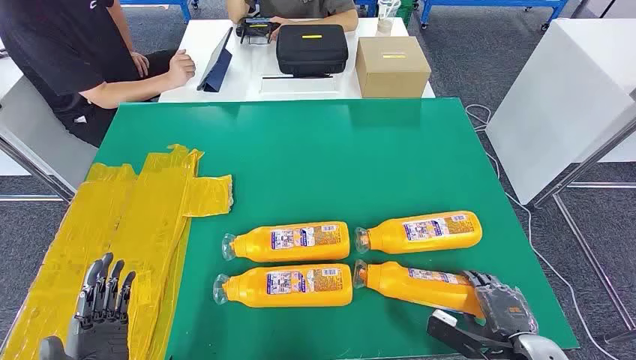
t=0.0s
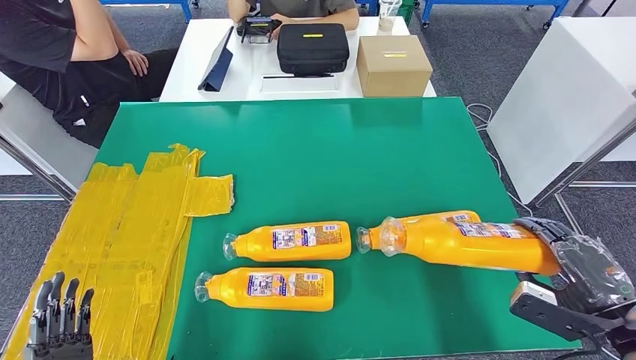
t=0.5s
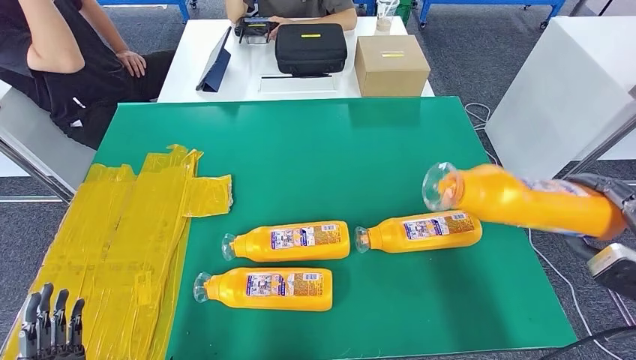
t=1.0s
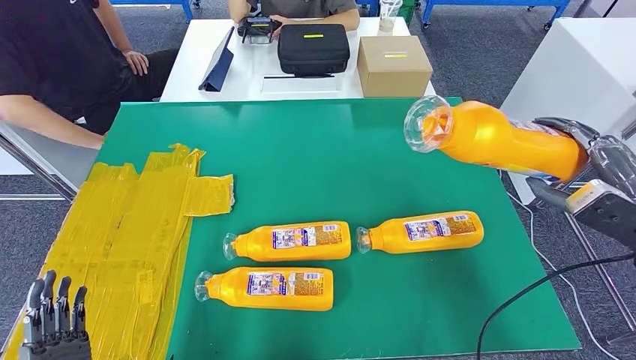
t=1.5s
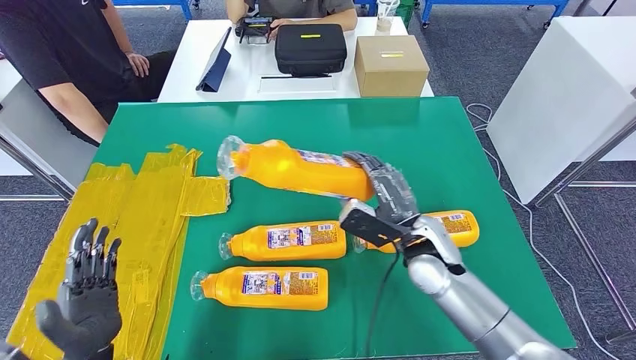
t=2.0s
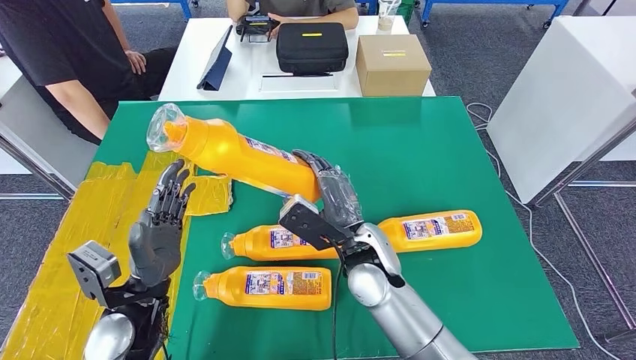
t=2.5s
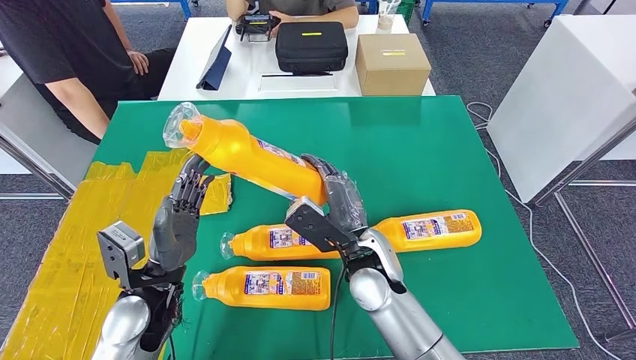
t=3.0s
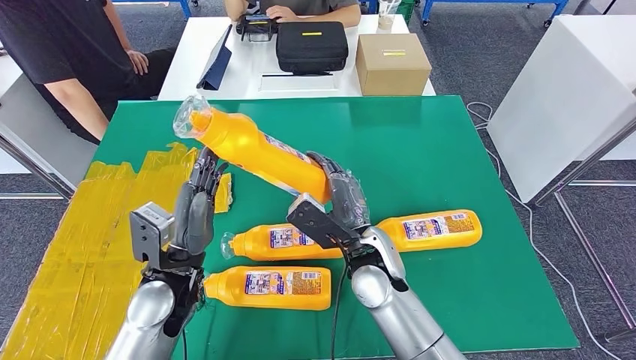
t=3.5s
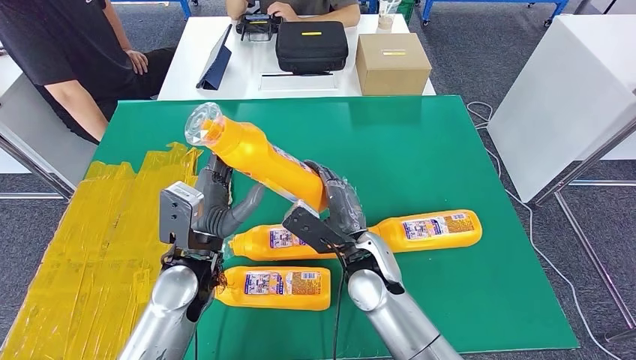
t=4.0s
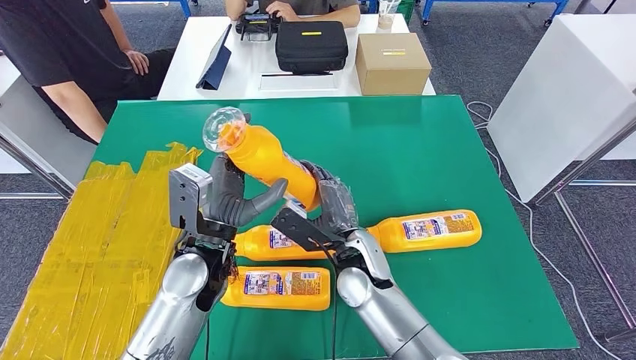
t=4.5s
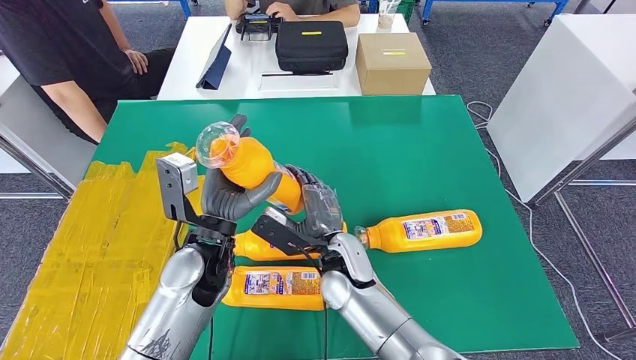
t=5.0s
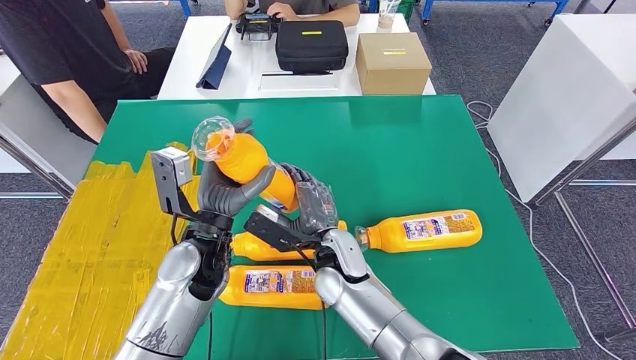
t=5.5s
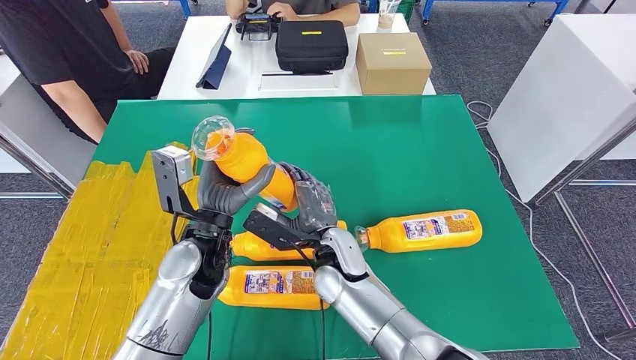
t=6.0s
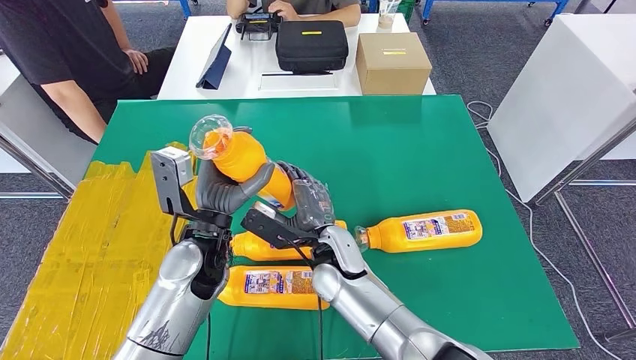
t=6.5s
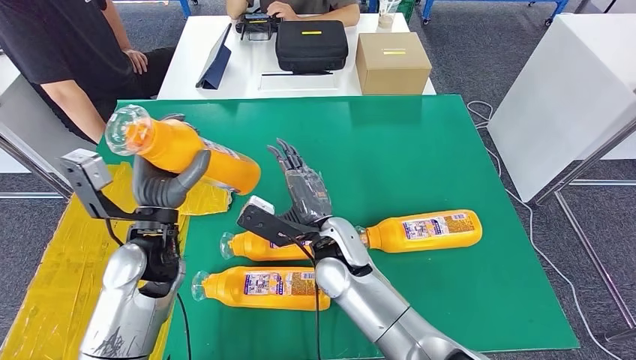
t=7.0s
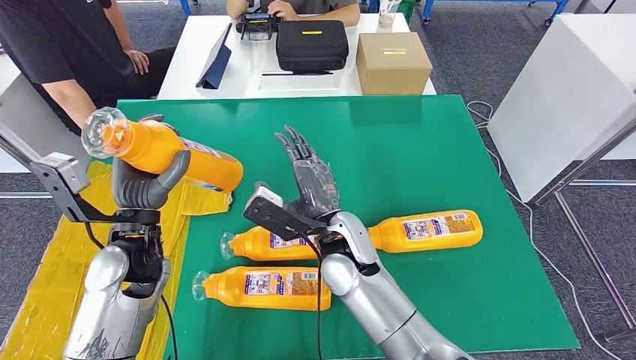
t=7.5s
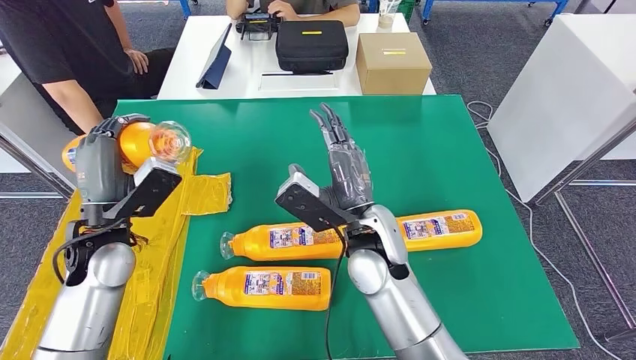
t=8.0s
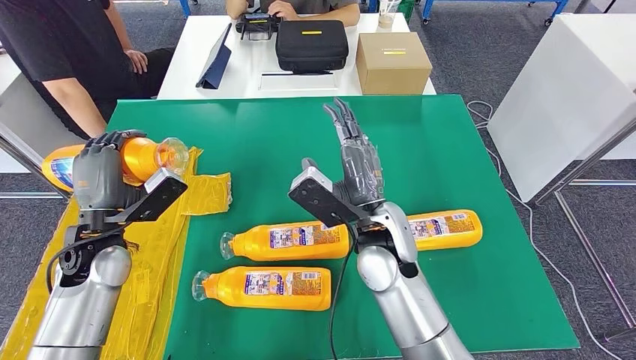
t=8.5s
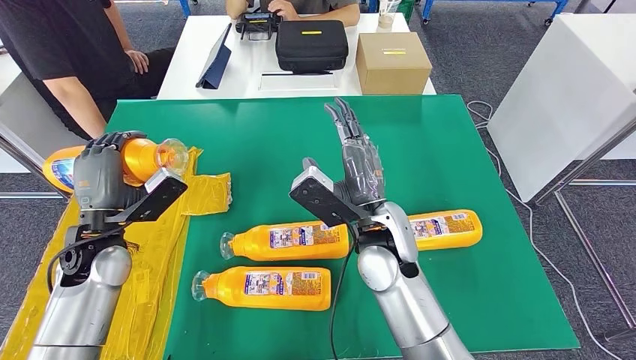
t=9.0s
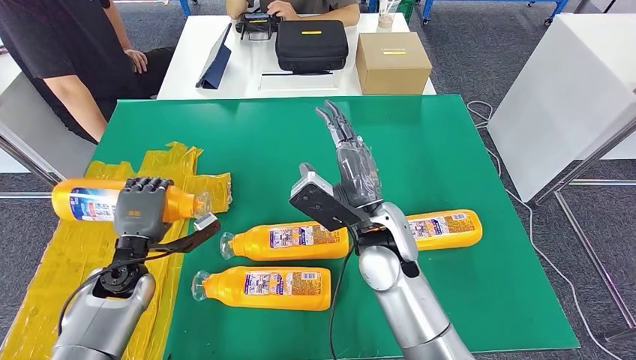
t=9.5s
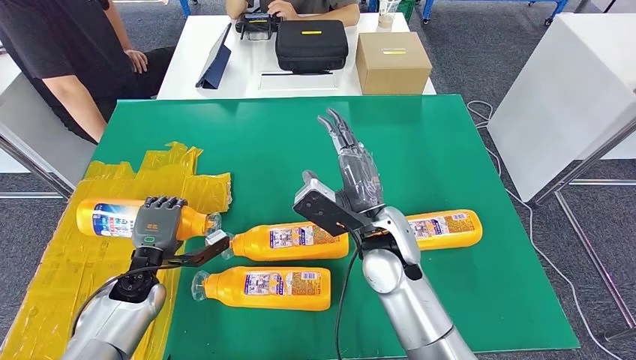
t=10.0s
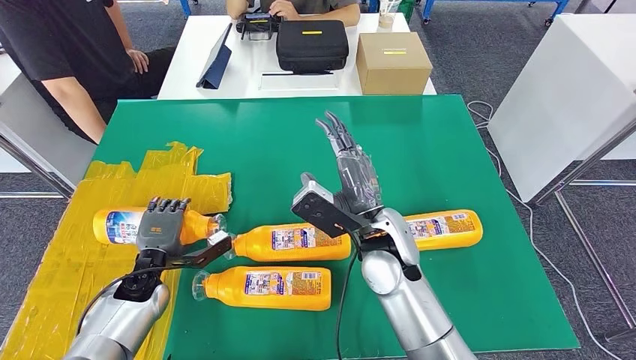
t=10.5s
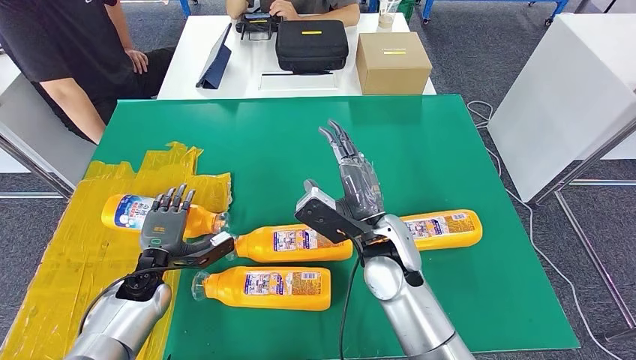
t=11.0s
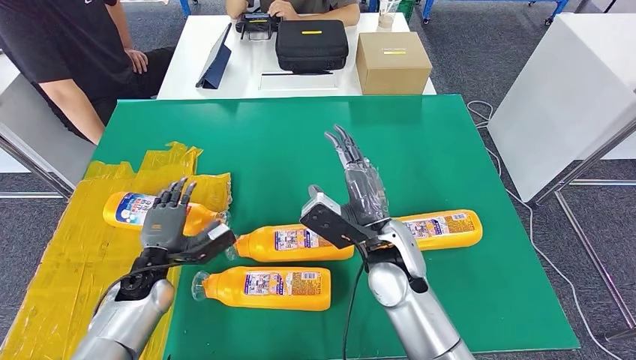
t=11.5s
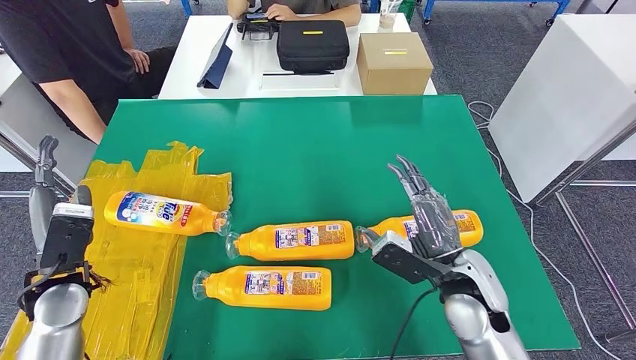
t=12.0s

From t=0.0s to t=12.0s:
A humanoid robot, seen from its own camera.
Step, from t=0.0s to t=4.5s: Take the bottle from the table.
Step, from t=5.0s to t=11.5s: Flip the bottle to face forward.
From t=4.0s to t=6.0s: The right hand shifts roughly 5 cm to the left.
From t=8.0s to t=10.0s: The left hand heads downward, covering some 15 cm.

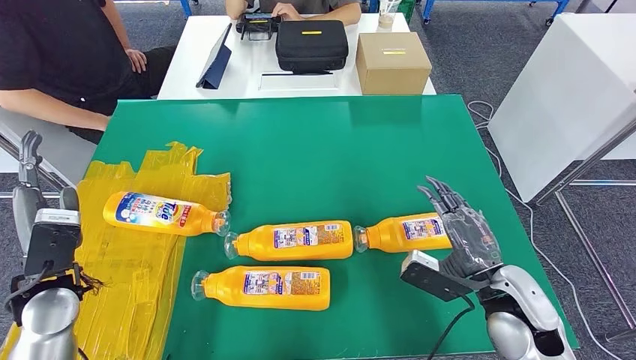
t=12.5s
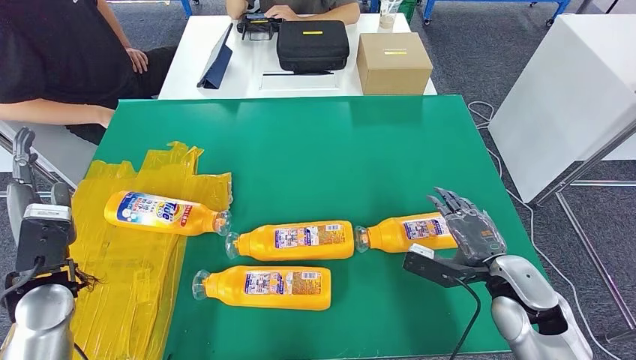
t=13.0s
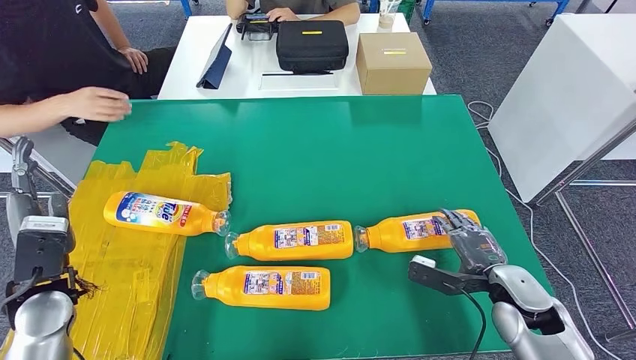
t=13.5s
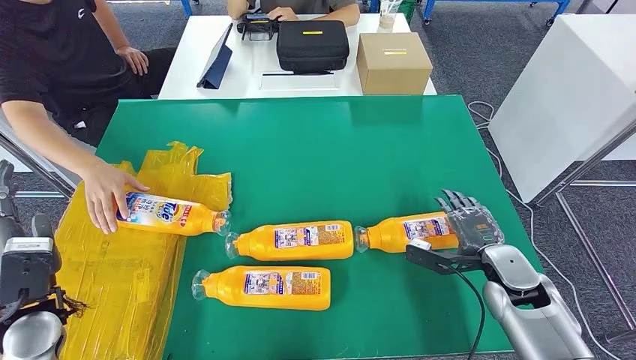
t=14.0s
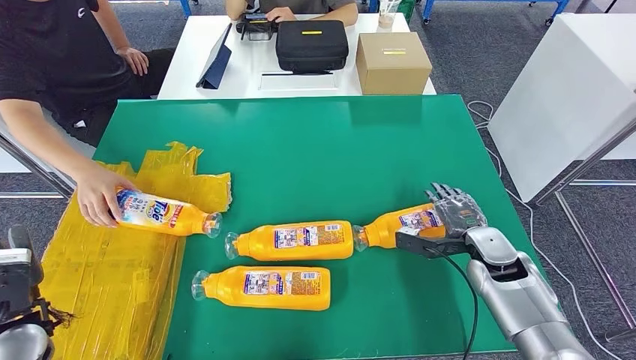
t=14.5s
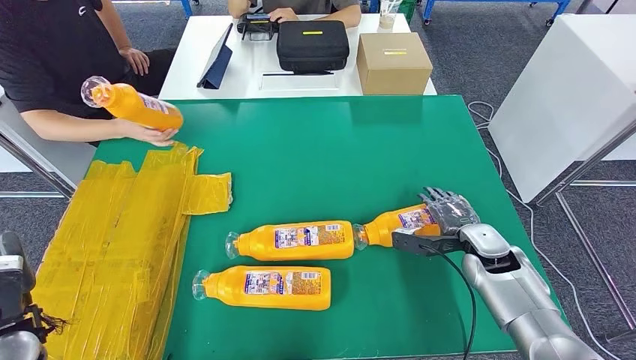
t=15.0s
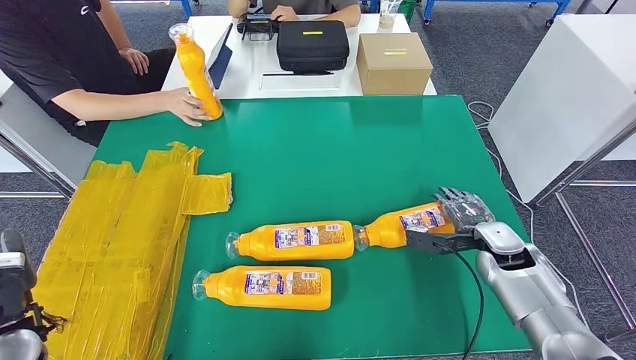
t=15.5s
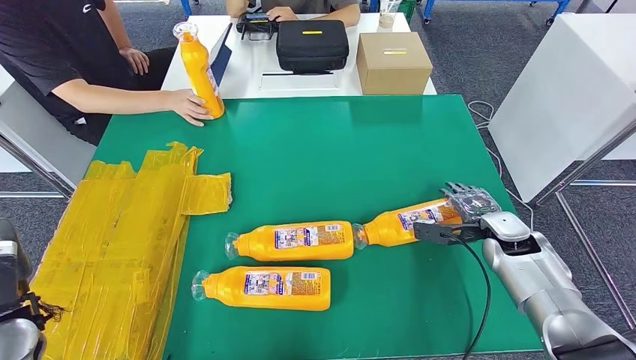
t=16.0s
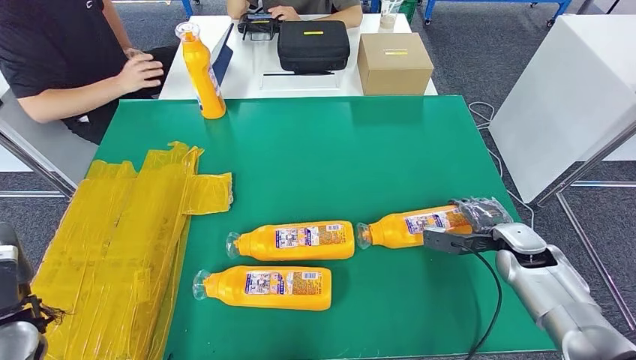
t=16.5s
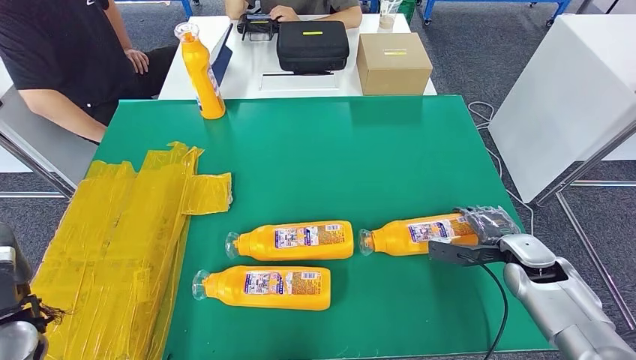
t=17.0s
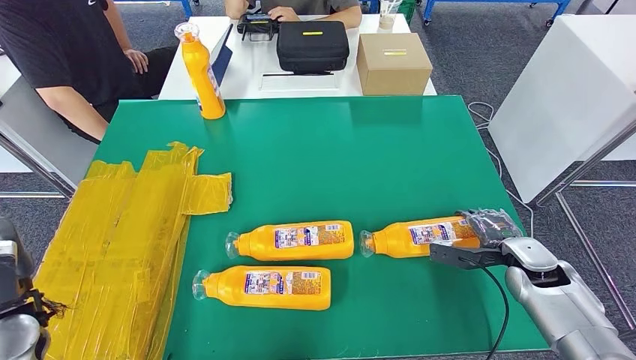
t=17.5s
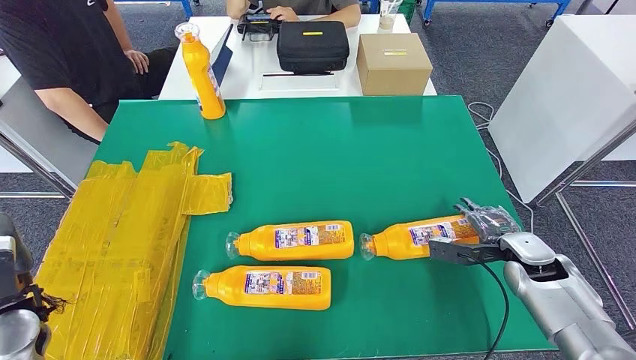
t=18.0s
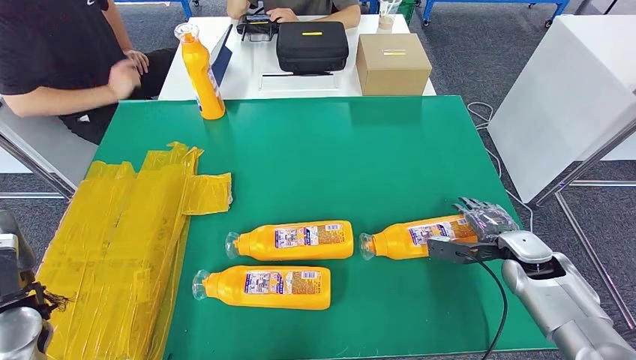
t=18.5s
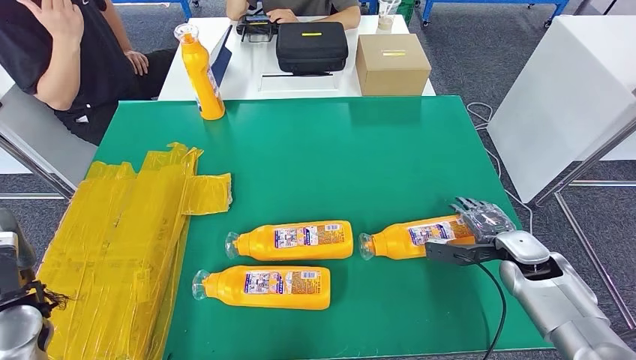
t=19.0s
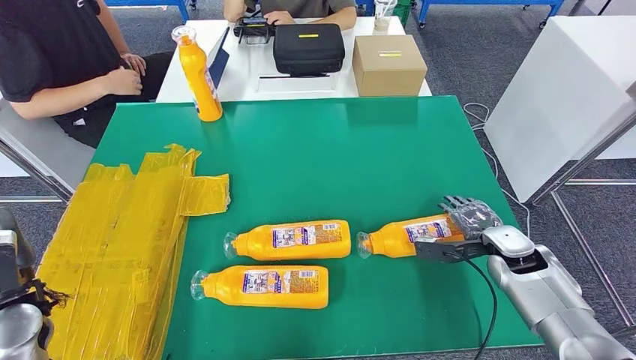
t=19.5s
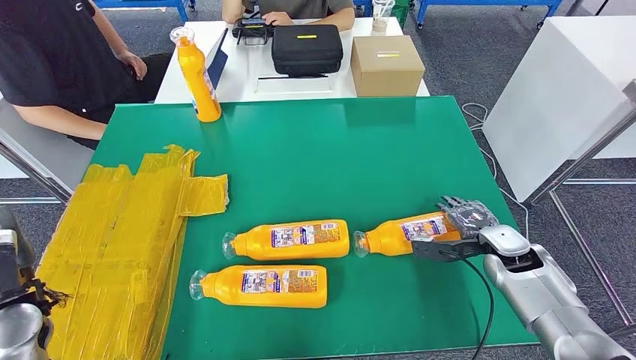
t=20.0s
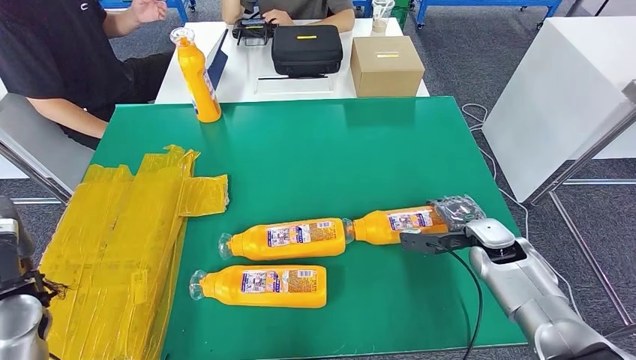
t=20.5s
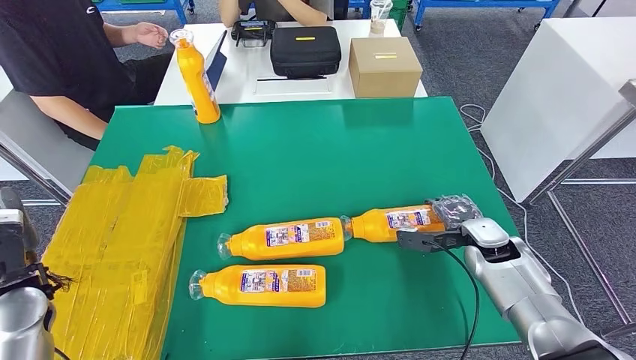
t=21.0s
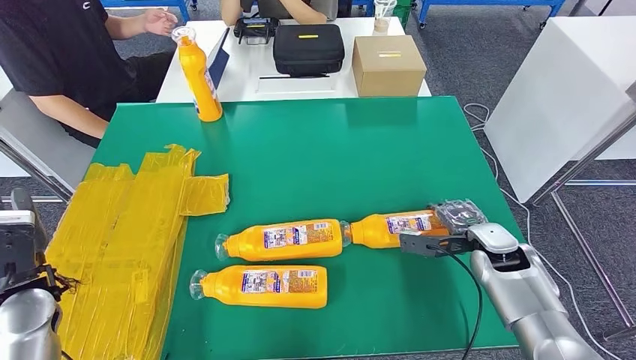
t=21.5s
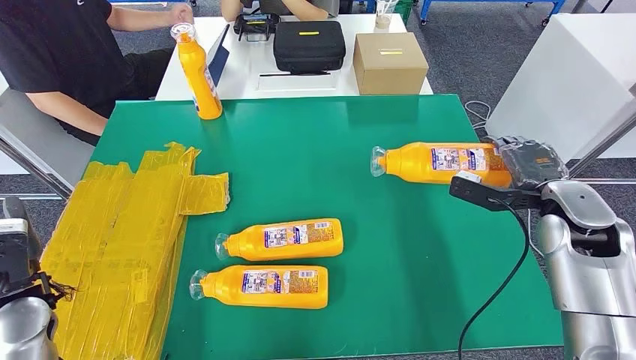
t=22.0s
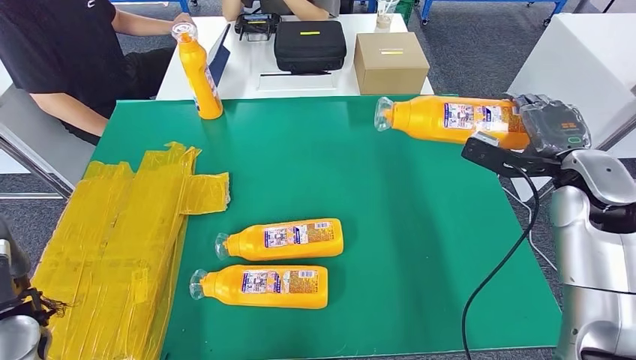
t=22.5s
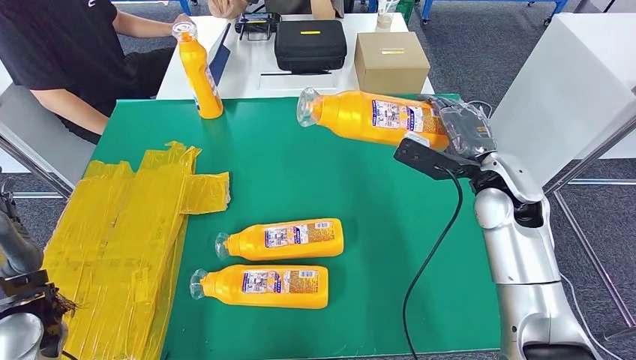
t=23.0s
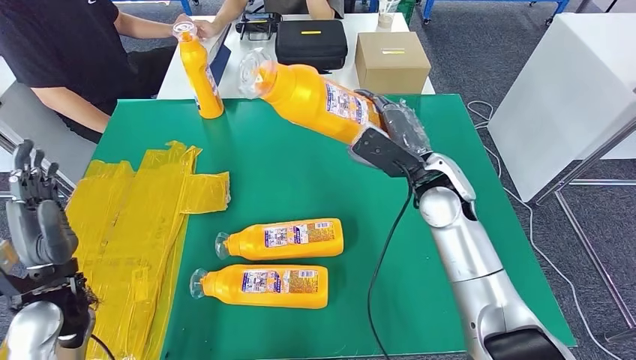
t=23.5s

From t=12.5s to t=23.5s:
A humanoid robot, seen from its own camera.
Step, from t=12.5s to t=22.5s: Pick up the bottle from the table.
From t=12.5s to t=14.5s: The right hand travels forward and downward by about 10 cm; the left hand changes place by some 5 cm.
From t=14.5s to t=16.0s: The right hand shifts by approximately 5 cm.
From t=16.0s to t=18.0s: The right hand ends up roughly 5 cm from where it was.
From t=20.0s to t=21.5s: There are only small adjustments of the hands.
